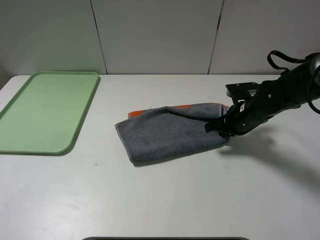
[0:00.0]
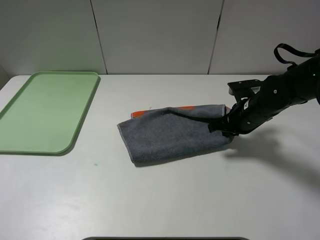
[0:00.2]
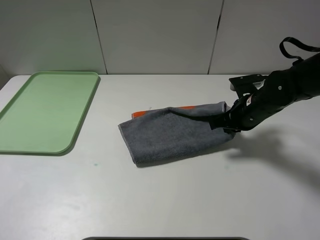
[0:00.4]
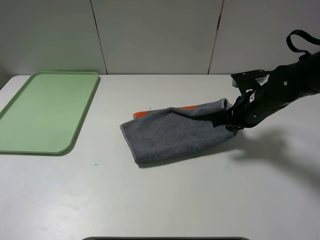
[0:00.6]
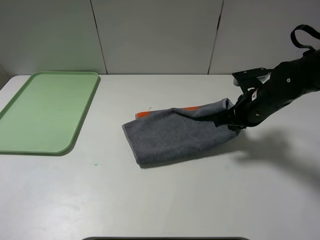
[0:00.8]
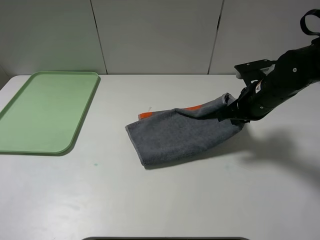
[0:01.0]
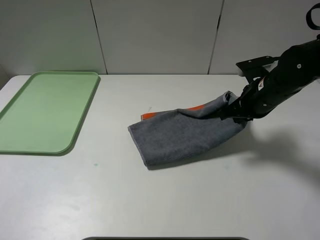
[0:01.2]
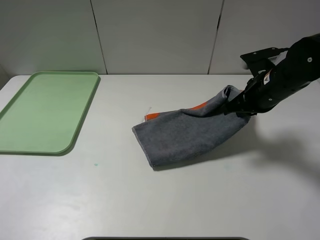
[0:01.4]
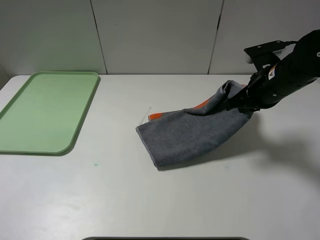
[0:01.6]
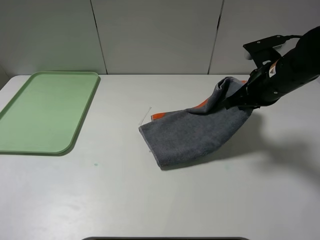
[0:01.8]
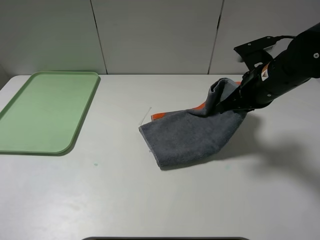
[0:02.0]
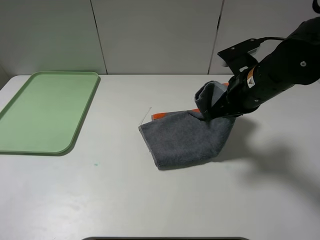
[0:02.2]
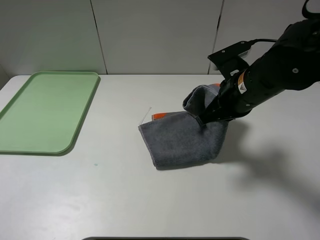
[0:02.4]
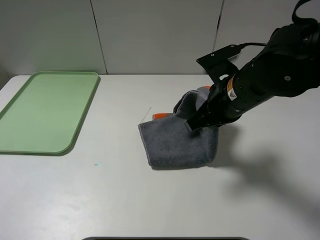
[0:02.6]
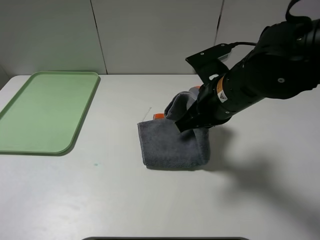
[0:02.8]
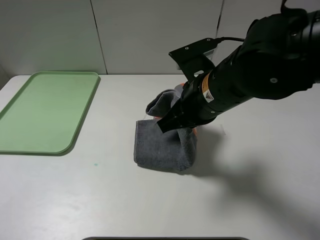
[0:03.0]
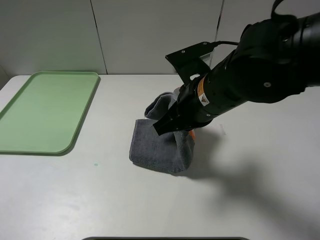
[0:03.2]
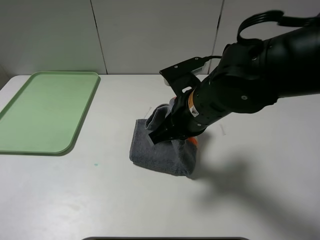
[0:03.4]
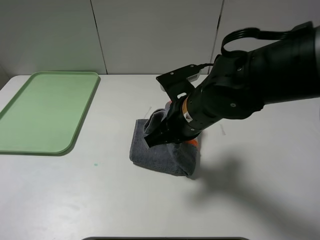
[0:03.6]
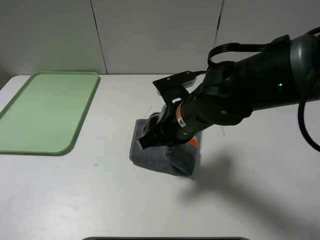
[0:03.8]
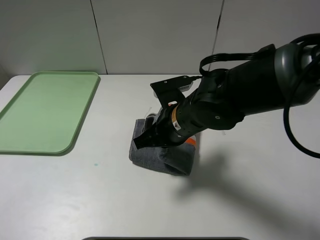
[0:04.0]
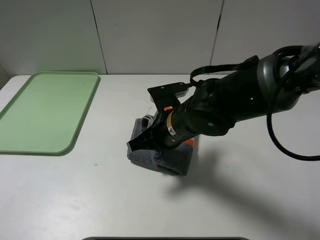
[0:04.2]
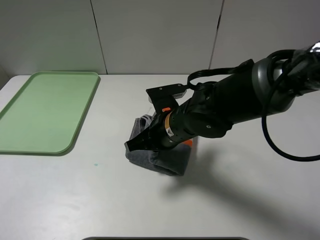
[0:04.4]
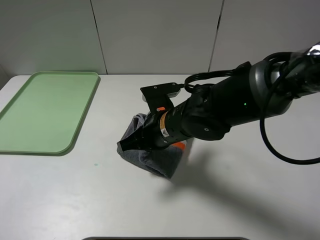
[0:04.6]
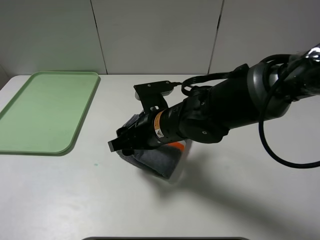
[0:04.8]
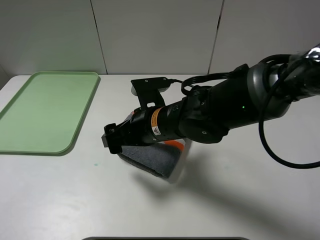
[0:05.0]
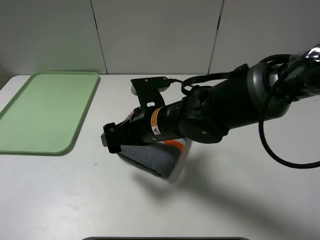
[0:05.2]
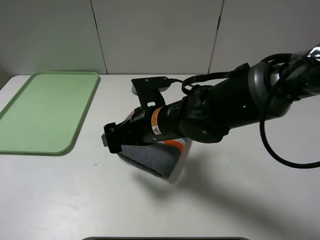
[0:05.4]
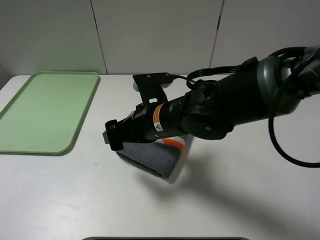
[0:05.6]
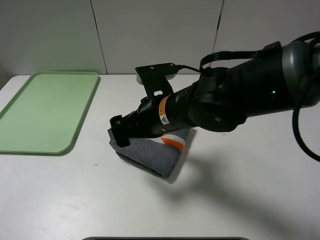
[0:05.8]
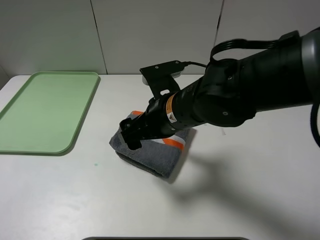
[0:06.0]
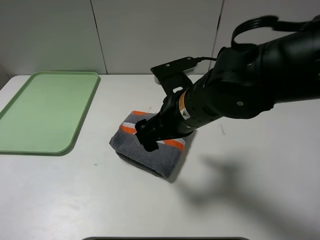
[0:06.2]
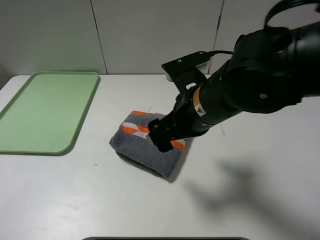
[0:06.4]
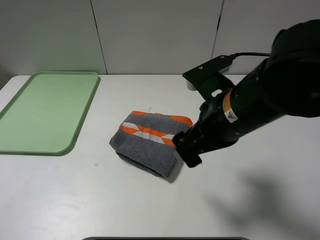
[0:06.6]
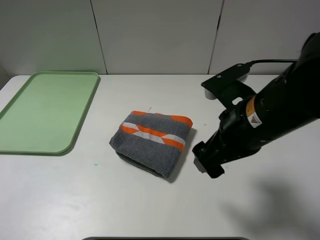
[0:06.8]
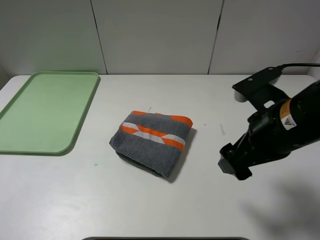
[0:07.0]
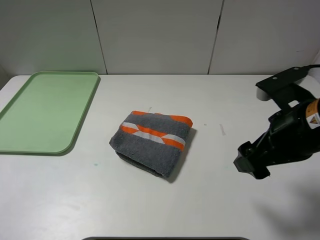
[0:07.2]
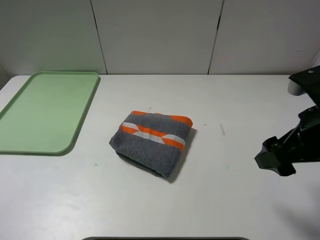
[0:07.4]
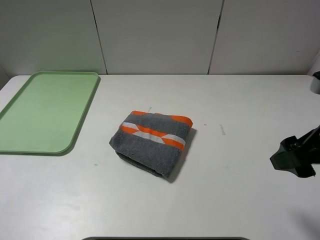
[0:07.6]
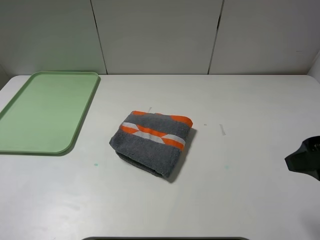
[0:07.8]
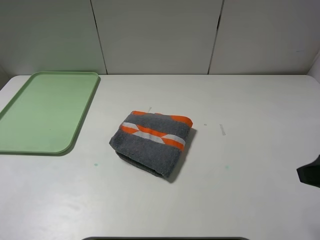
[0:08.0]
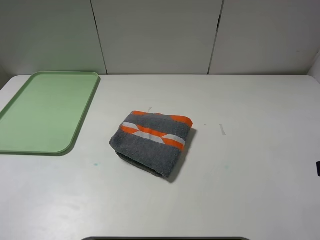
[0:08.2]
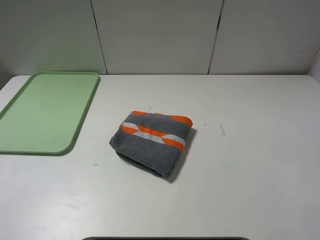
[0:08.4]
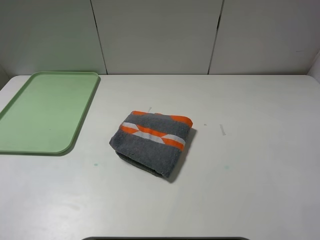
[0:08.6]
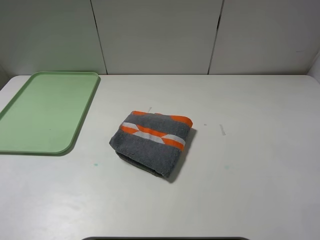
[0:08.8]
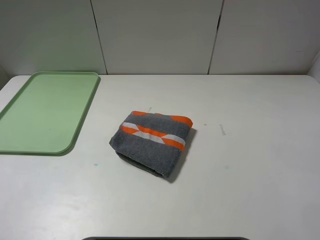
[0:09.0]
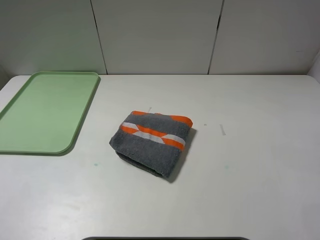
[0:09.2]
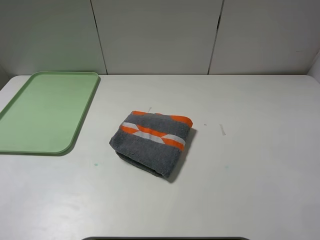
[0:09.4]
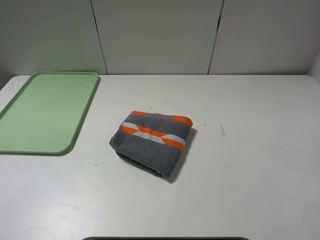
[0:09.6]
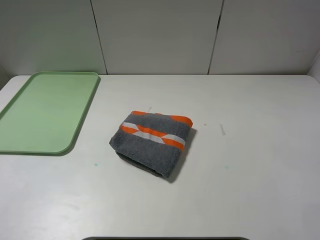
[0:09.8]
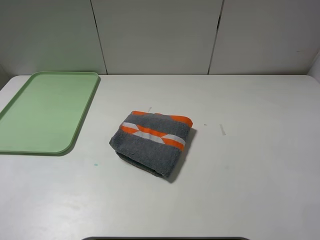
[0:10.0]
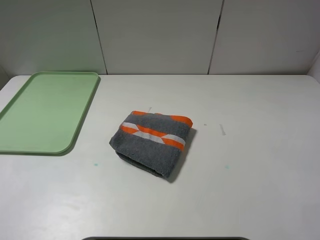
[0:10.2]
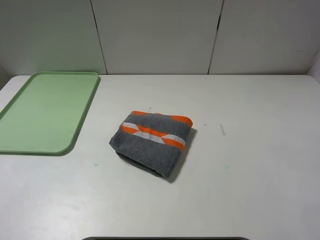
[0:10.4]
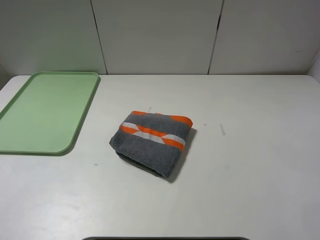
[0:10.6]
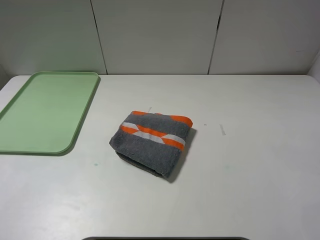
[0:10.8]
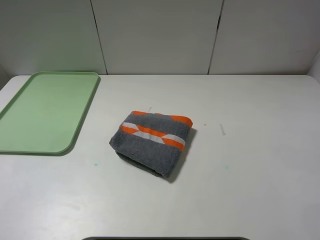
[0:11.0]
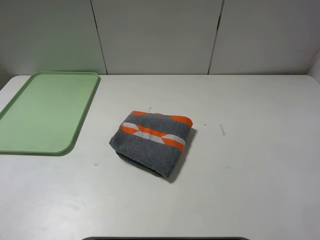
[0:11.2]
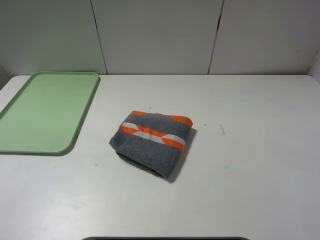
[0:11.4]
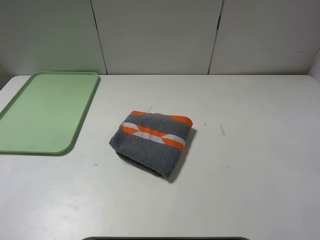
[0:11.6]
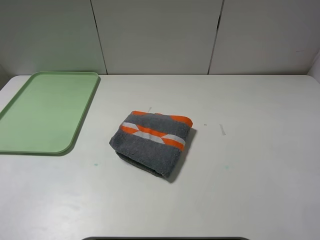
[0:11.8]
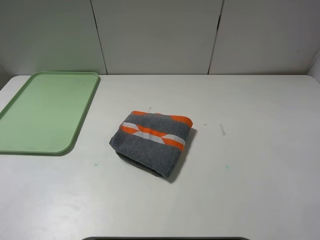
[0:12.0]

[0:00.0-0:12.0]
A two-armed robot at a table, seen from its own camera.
Step, 0:00.0 to 0:05.2: Fold the grey towel from right to left with right gripper.
0:00.0 to 0:01.6: The right gripper heads upward, covering approximately 10 cm.
0:01.6 to 0:03.0: The right gripper shifts about 15 cm to the left and backward.
0:03.0 to 0:04.4: The right gripper travels downward by approximately 10 cm.
0:04.4 to 0:06.0: The right gripper heads upward, covering approximately 5 cm, and opens.
0:06.0 to 0:07.6: The right gripper moves to the right, about 20 cm.
0:07.6 to 0:09.0: The right gripper is displaced backward by some 15 cm.
0:09.0 to 0:12.0: Neither gripper changes place.

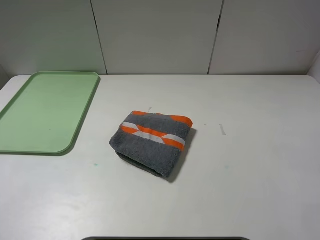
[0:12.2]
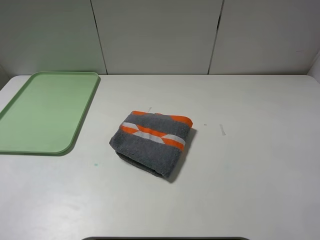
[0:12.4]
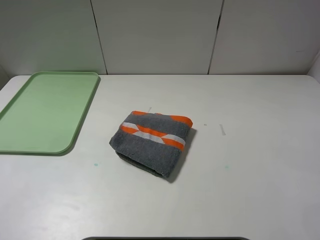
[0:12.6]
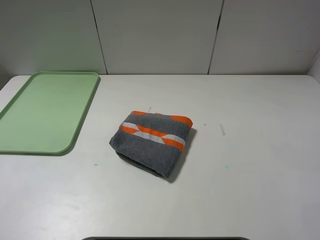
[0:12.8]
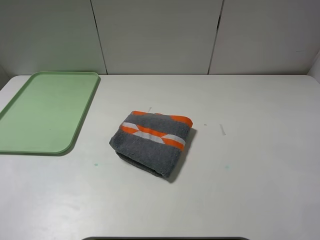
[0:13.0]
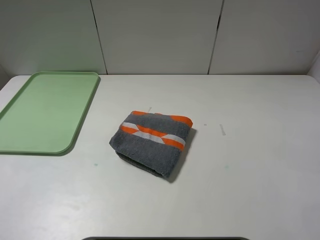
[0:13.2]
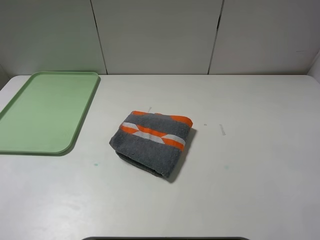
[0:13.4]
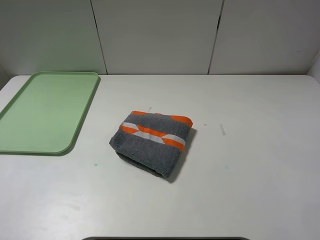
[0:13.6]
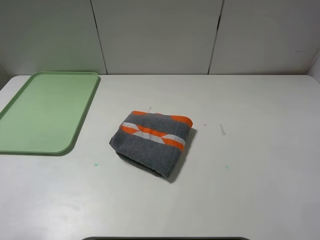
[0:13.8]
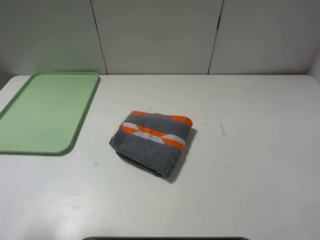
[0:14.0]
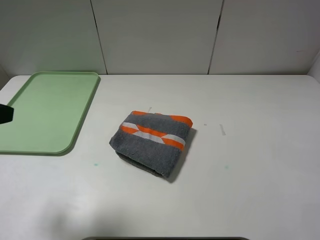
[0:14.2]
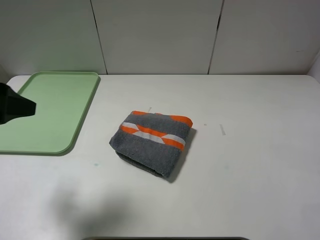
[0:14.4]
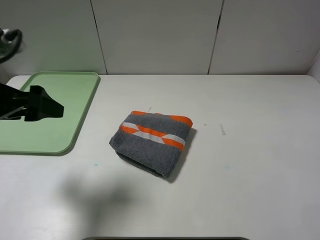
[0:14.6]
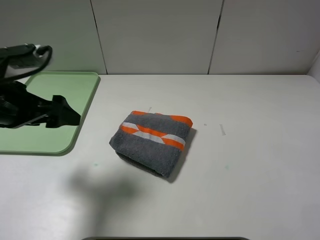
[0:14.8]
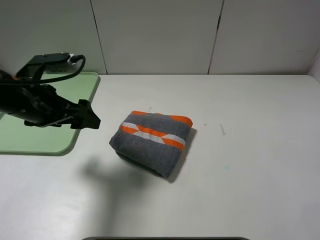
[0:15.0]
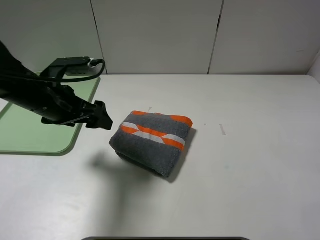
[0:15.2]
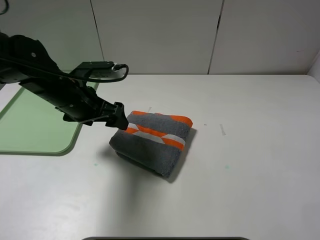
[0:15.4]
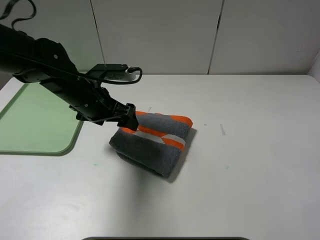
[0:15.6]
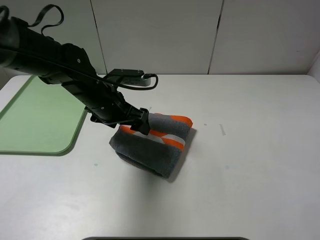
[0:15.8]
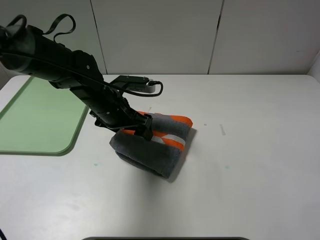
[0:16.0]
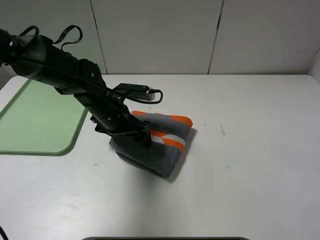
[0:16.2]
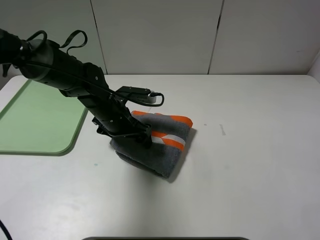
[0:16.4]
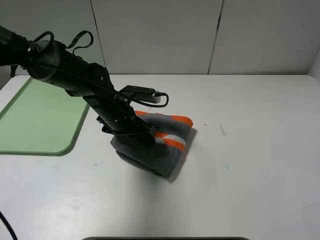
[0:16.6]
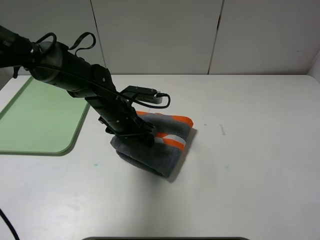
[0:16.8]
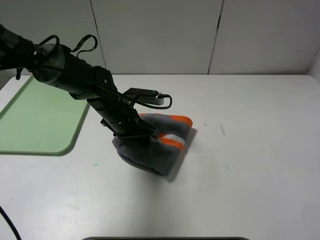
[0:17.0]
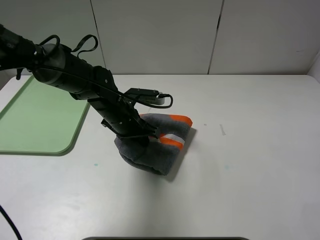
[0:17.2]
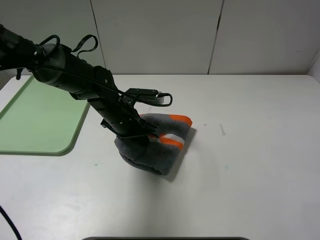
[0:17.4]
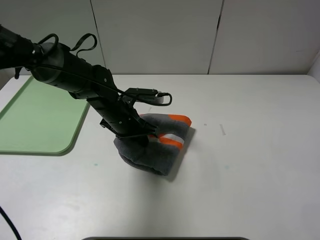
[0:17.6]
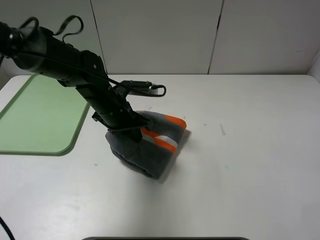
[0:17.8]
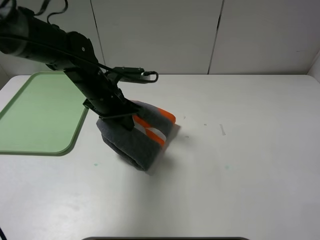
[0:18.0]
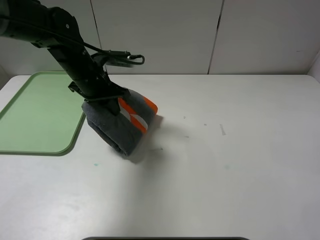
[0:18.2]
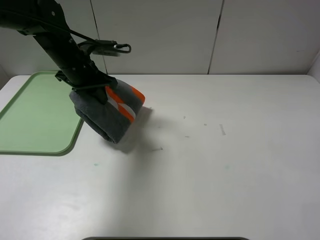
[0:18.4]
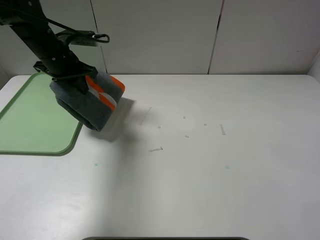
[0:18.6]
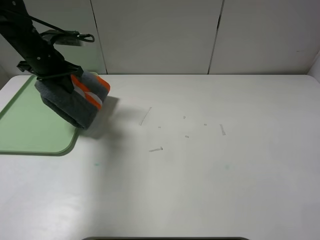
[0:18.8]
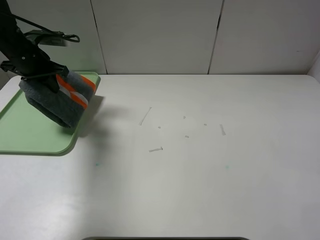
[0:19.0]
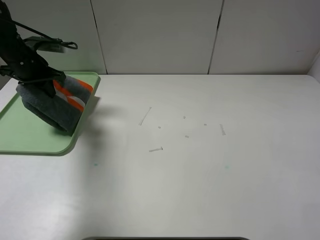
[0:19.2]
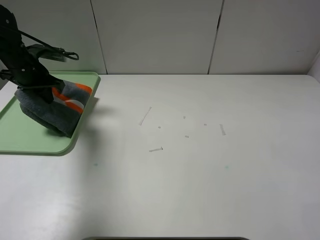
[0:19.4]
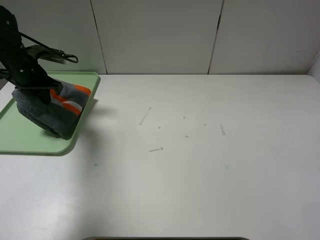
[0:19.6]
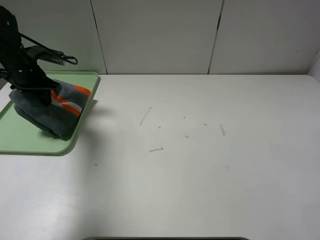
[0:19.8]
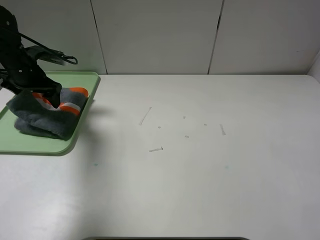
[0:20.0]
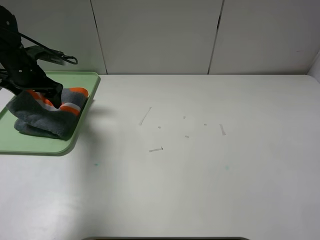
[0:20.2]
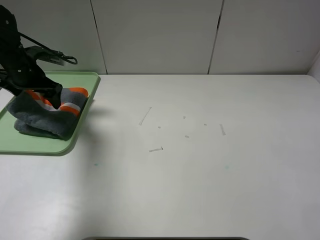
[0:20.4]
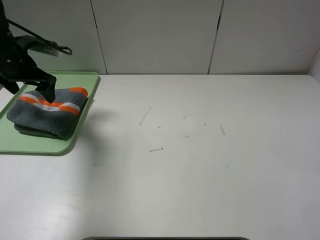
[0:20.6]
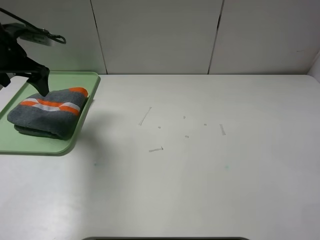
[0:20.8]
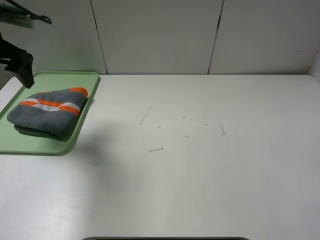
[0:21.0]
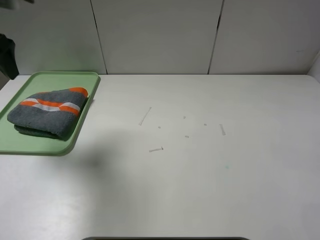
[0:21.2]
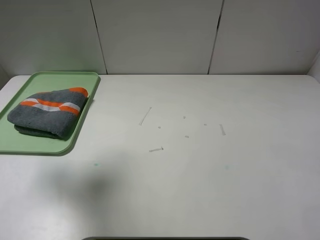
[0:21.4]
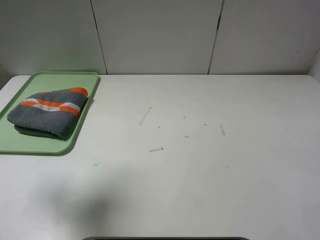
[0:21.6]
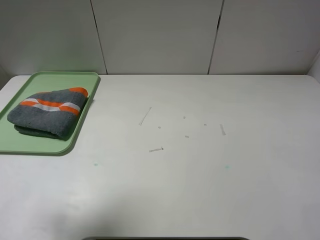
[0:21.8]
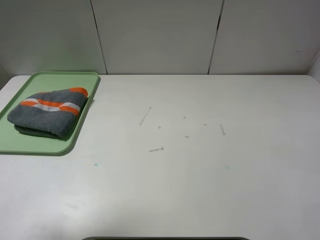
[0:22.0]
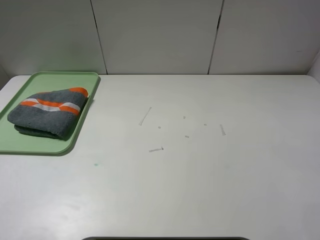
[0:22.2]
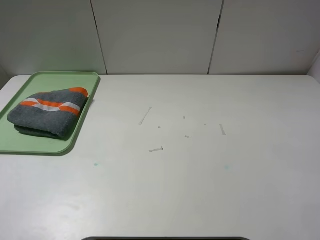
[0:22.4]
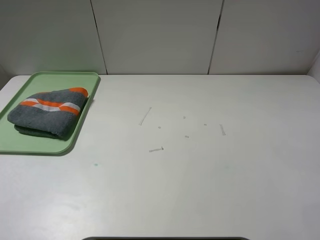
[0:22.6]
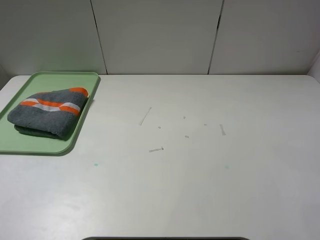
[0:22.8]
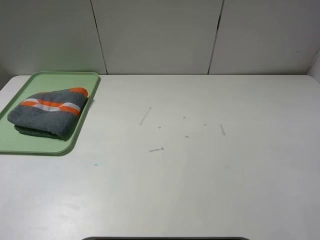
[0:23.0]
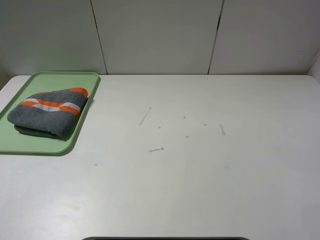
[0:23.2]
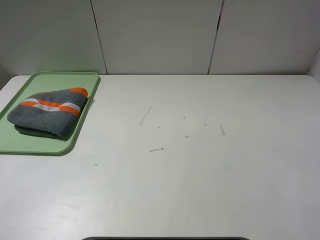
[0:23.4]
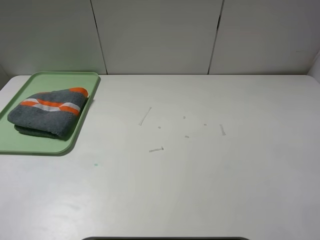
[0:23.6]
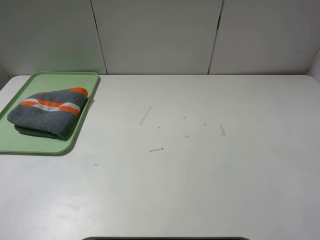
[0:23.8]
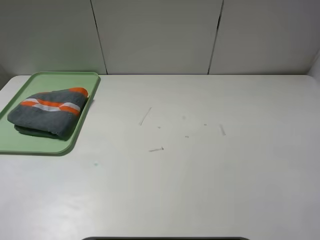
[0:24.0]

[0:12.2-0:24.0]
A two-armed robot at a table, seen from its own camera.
Step, 0:12.2 to 0:20.6: Place the folded grey towel on the tray with the left gripper.
0:13.6 to 0:15.2: The left gripper heads forward and to the right, covering some 30 cm.
0:15.2 to 0:16.6: The left gripper moves to the right, downward and forward, approximately 15 cm.
0:16.6 to 0:18.2: The left gripper travels upward and to the left by roughly 10 cm, and closes its fingers.
0:18.2 to 0:19.6: The left gripper travels to the left by approximately 15 cm.
0:19.6 to 0:21.0: The left gripper moves upward and backward, about 15 cm, and opens up.
0:21.0 to 0:22.6: The left gripper is displaced backward by some 30 cm.
